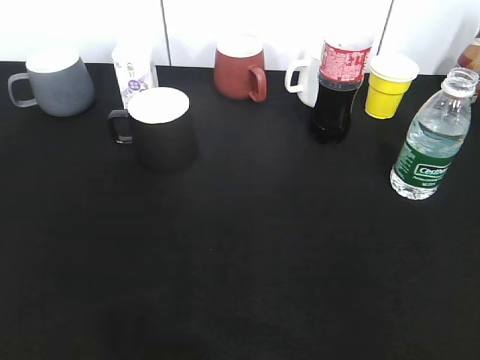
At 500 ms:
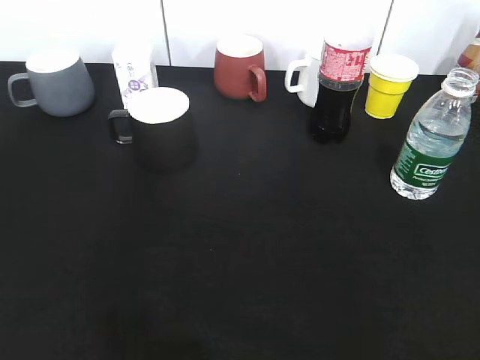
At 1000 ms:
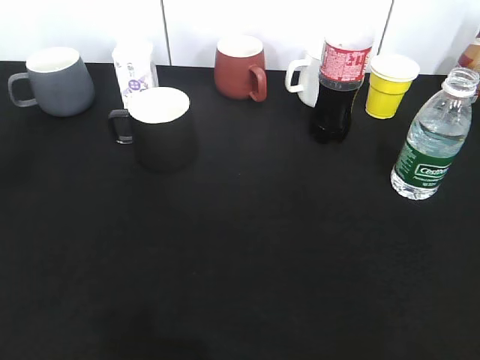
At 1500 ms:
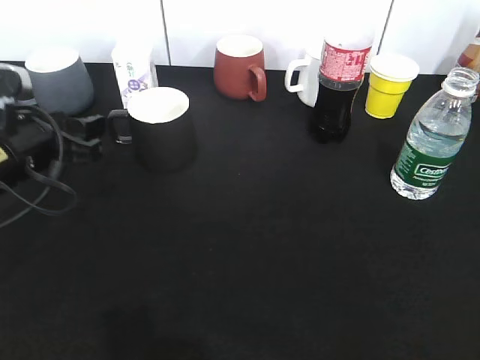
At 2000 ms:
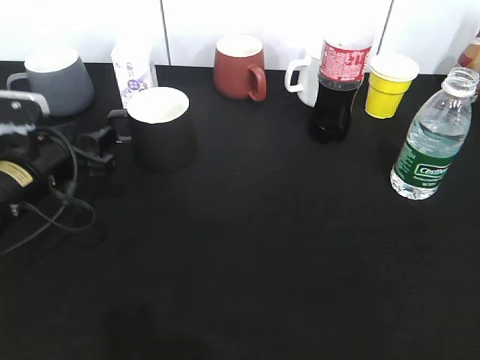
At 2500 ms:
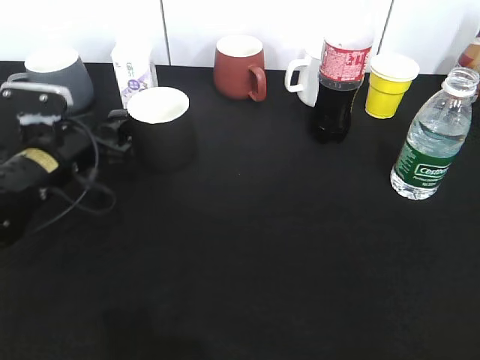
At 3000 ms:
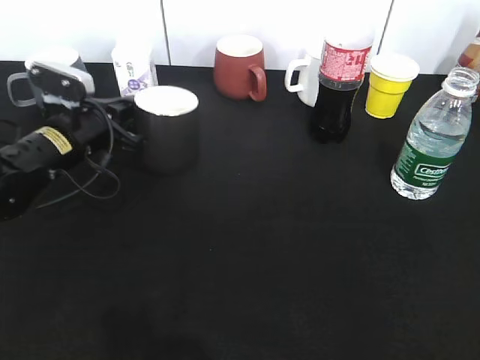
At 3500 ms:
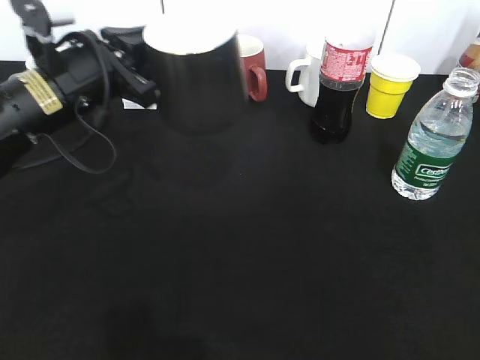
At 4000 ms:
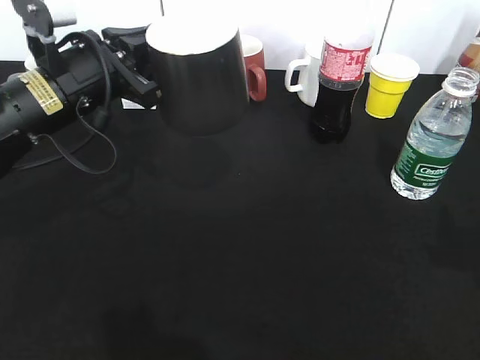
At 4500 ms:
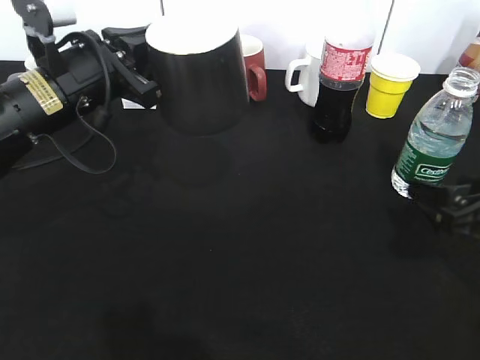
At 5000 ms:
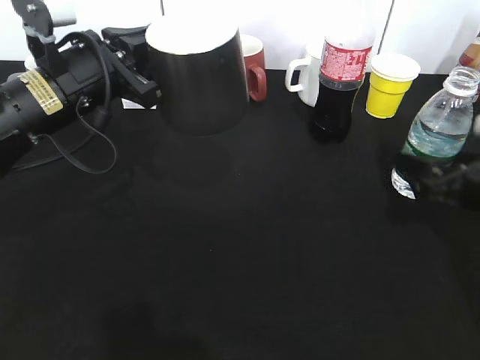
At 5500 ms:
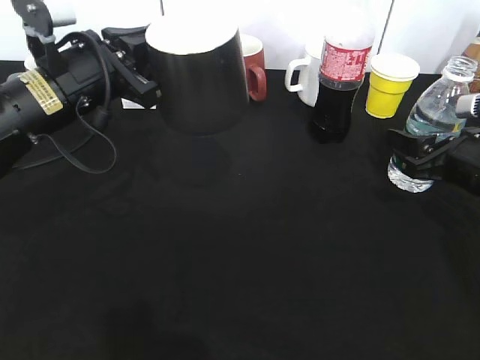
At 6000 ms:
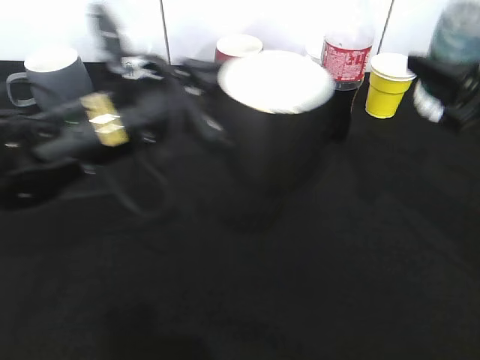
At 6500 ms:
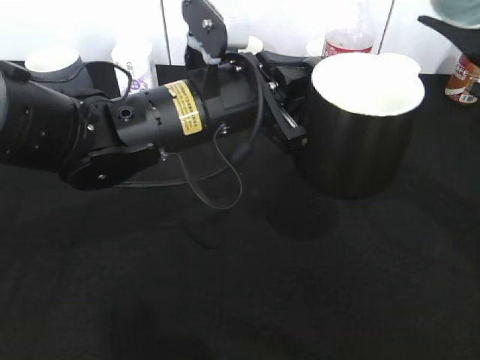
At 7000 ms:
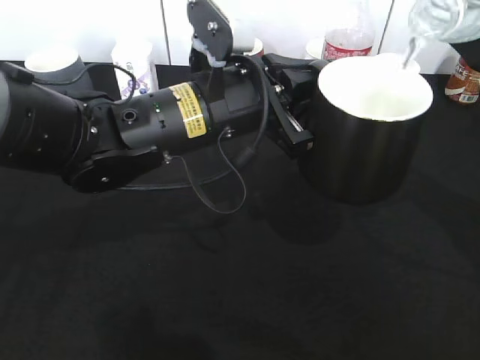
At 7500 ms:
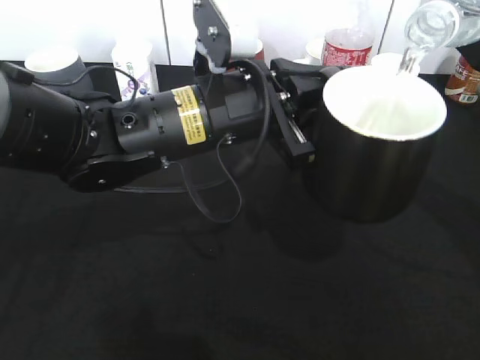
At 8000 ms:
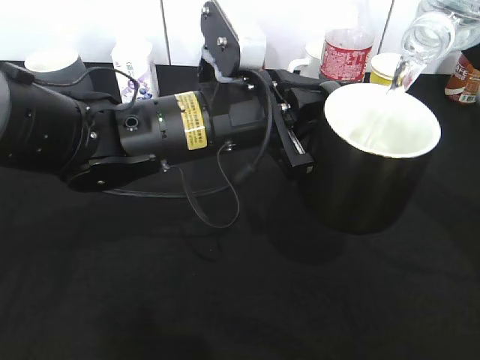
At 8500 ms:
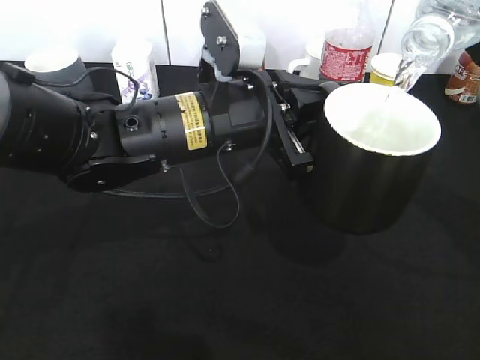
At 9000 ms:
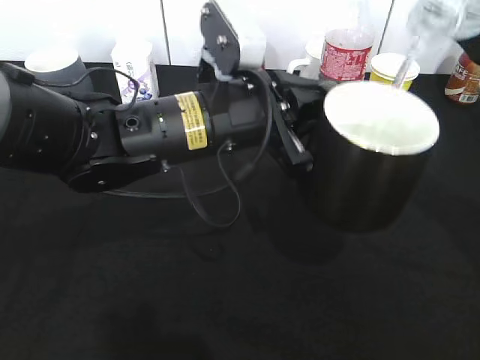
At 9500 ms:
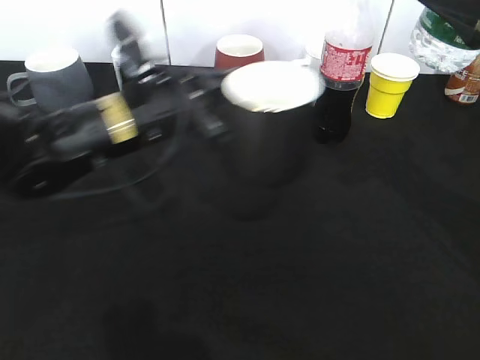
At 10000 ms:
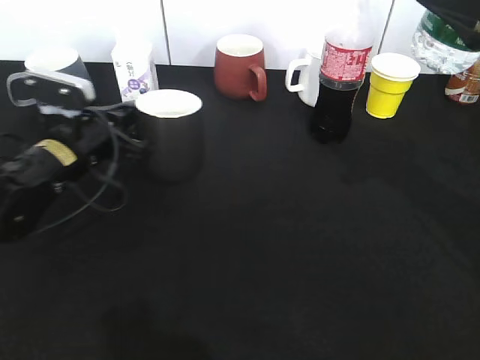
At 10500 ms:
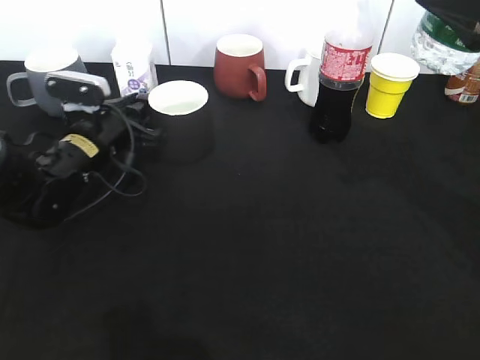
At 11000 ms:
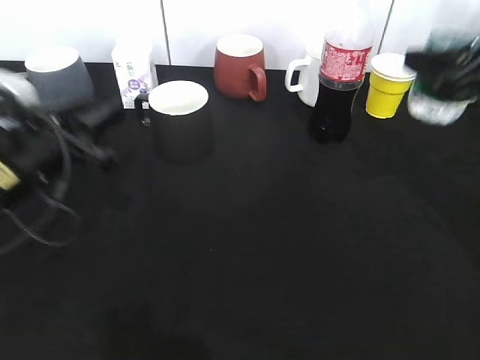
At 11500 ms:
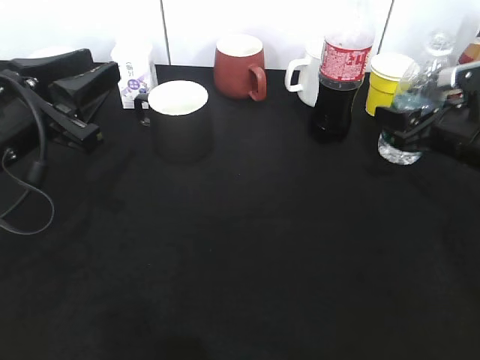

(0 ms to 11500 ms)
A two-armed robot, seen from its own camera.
Step, 1000 ms - 2500 ms: Grasp the black cup with left gripper.
Step, 3000 ms - 3500 ms: Lift the black cup with left gripper.
Step, 4000 ms - 5000 ms: Grasp the bottle with water with right gripper.
Step, 5500 ms - 9500 ms: Pour the water from bottle to cup with right gripper.
Step, 10000 ms - 10500 ms: Place the black cup on the table with left gripper.
0 ms - 2000 ms: The left gripper shifts about 35 cm forward and downward, and opens up.
2000 ms - 4000 ms: The left gripper heads upward and to the right, covering about 10 cm, and closes up; the right gripper is displaced forward by some 15 cm.
4000 ms - 6000 ms: The left gripper goes some 5 cm to the right. The right gripper shifts roughly 15 cm forward, and opens, then closes once more.
6000 ms - 7500 ms: The right gripper travels upward by about 5 cm, while the left gripper heads to the right, covering about 5 cm.
7500 ms - 9500 ms: The left gripper shifts some 10 cm to the left.
9500 ms - 11500 ms: The left gripper travels to the left and backward by about 10 cm, and opens up; the right gripper travels downward and forward by roughly 20 cm.

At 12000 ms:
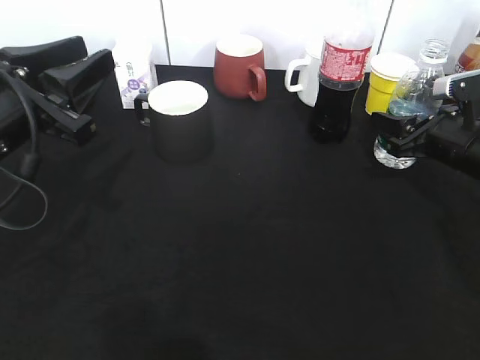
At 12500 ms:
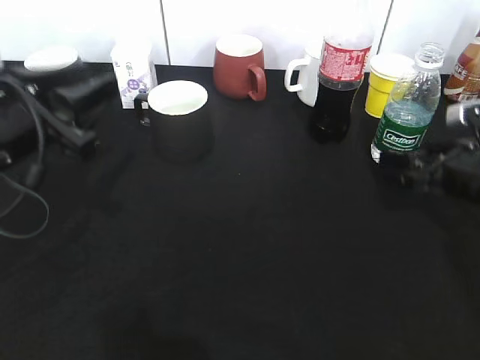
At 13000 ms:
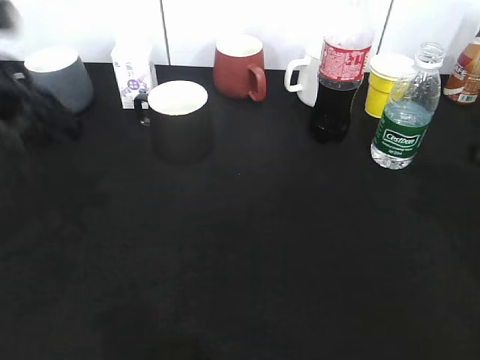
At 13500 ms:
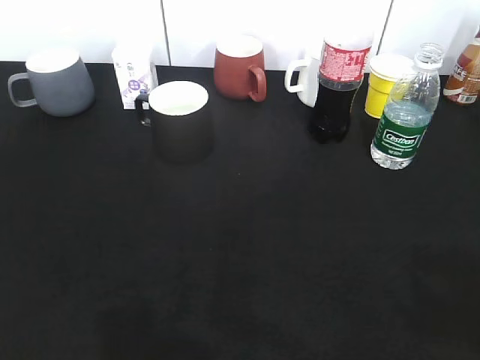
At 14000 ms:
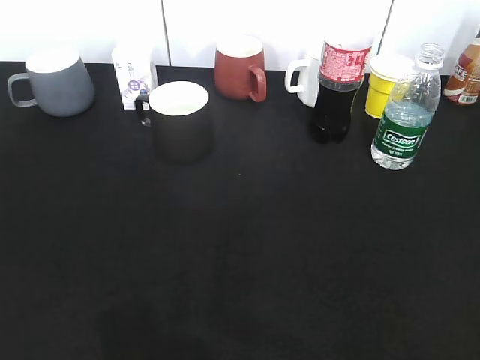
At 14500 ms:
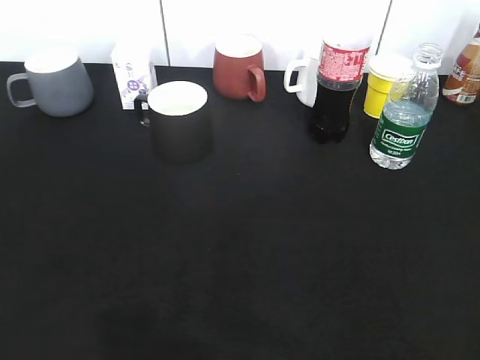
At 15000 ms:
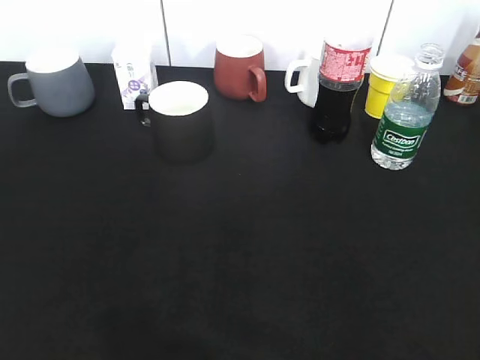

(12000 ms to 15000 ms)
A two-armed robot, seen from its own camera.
12000 ms - 13500 ms: The left gripper is displaced backward, upward and to the left by approximately 25 cm. The right gripper travels backward and upward by roughly 35 cm, and opens its fingers.
